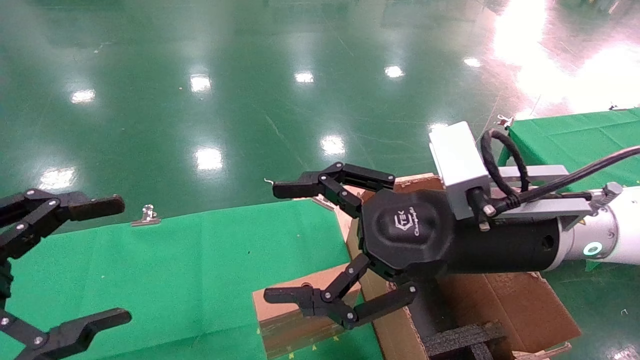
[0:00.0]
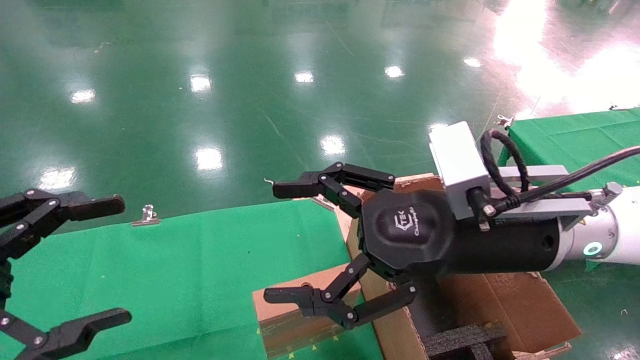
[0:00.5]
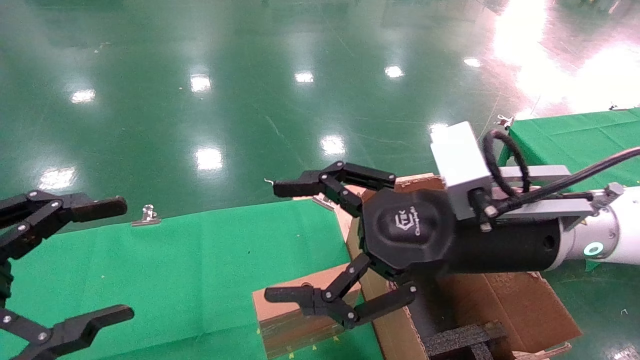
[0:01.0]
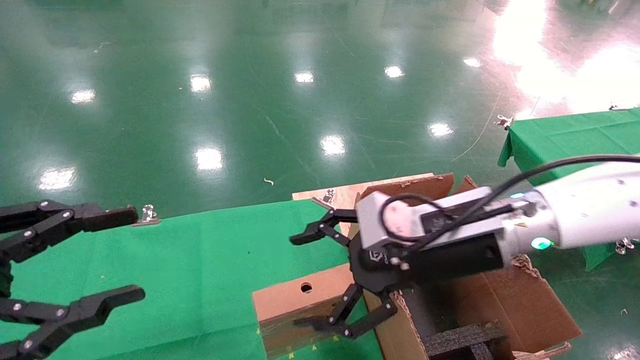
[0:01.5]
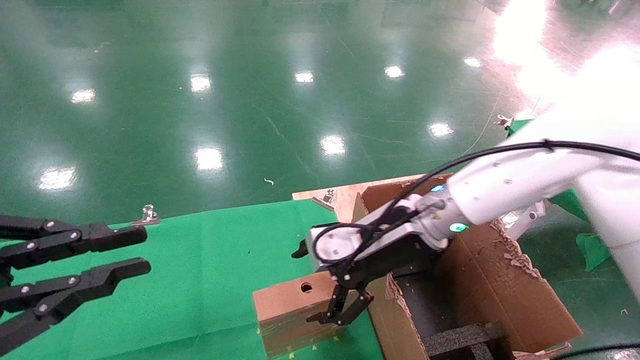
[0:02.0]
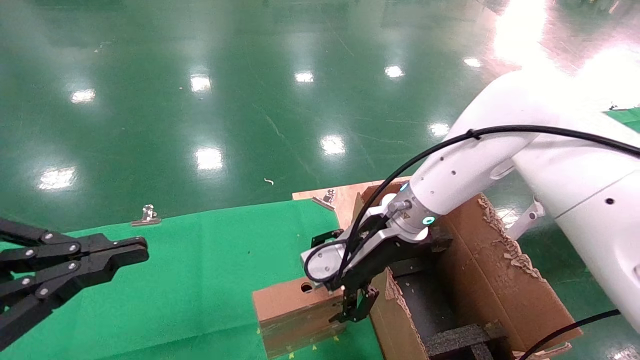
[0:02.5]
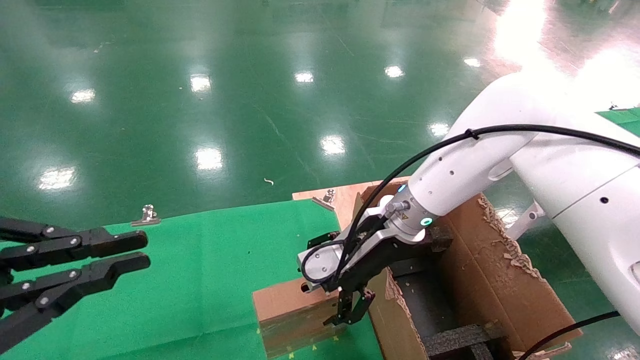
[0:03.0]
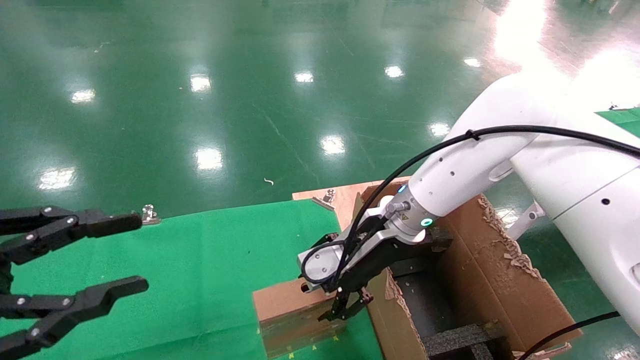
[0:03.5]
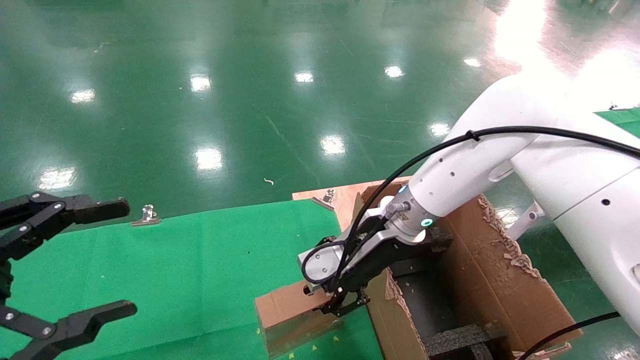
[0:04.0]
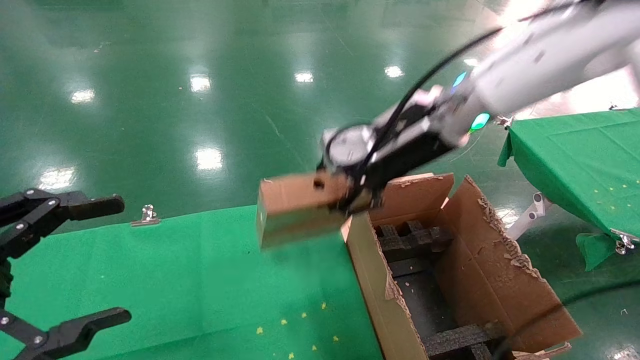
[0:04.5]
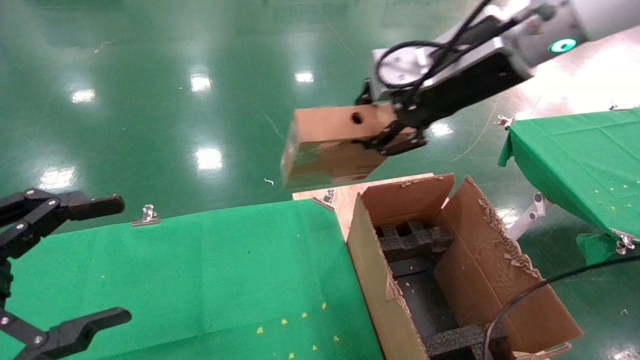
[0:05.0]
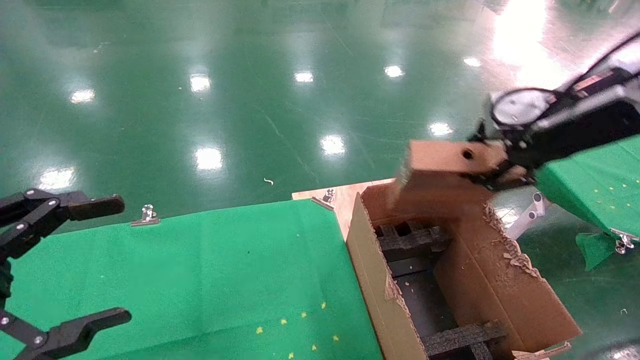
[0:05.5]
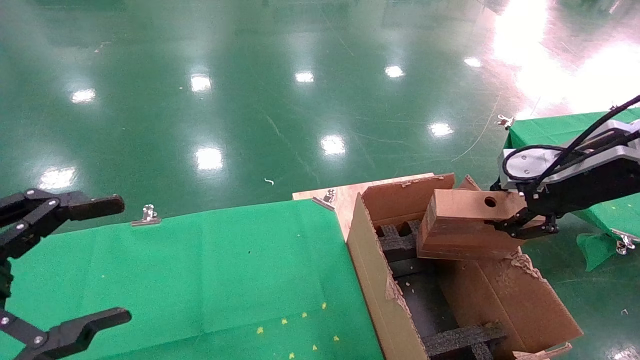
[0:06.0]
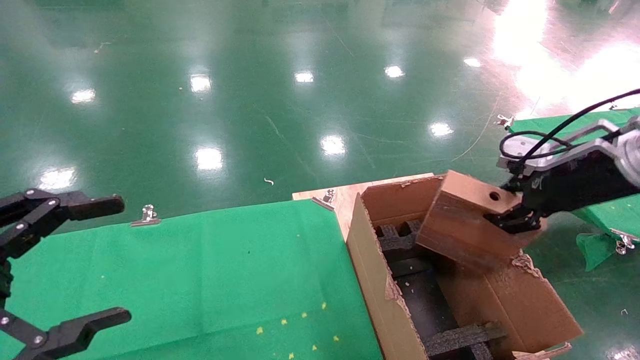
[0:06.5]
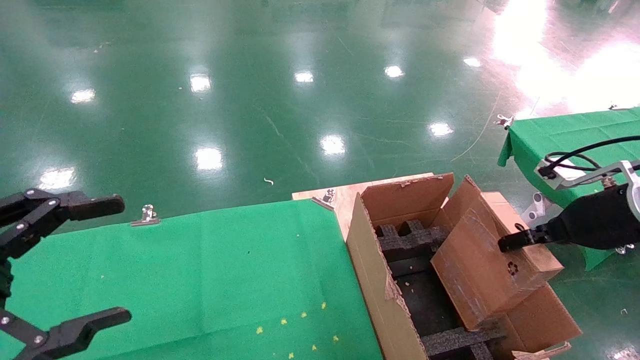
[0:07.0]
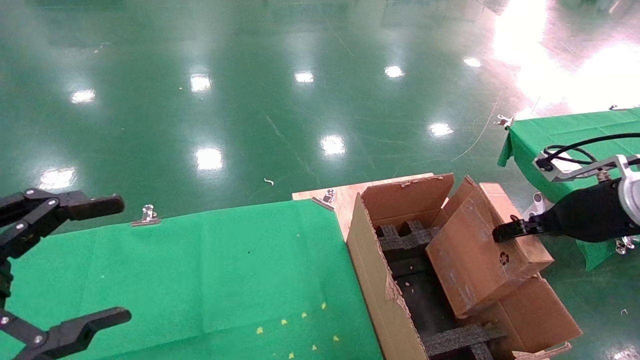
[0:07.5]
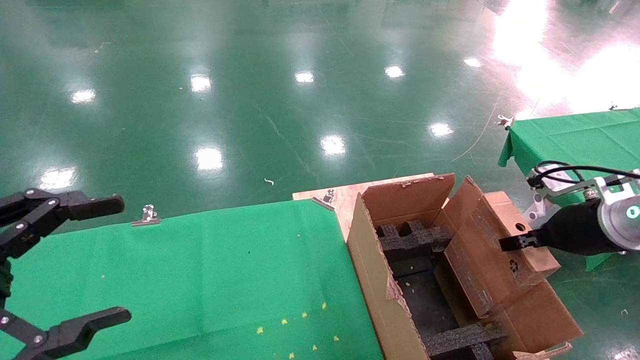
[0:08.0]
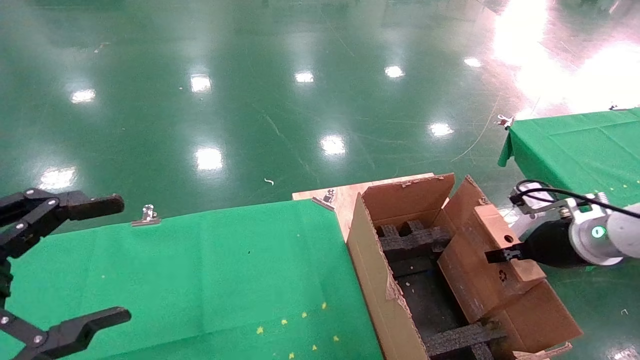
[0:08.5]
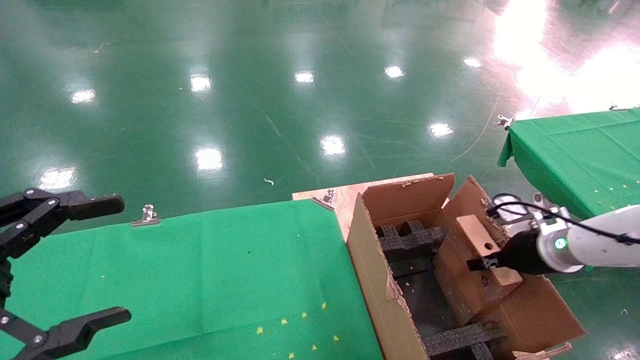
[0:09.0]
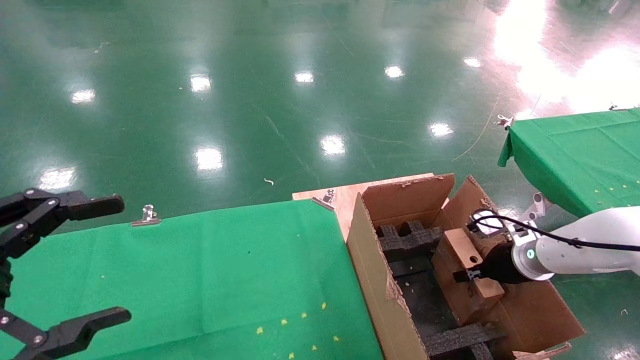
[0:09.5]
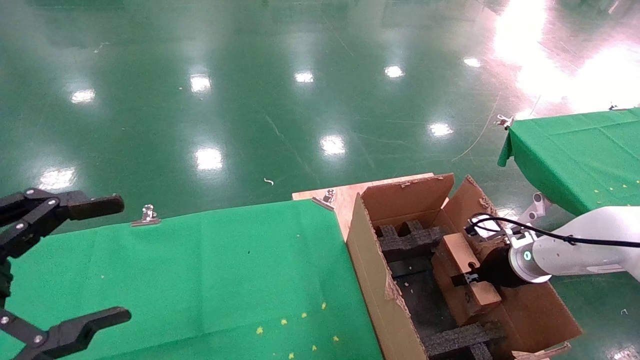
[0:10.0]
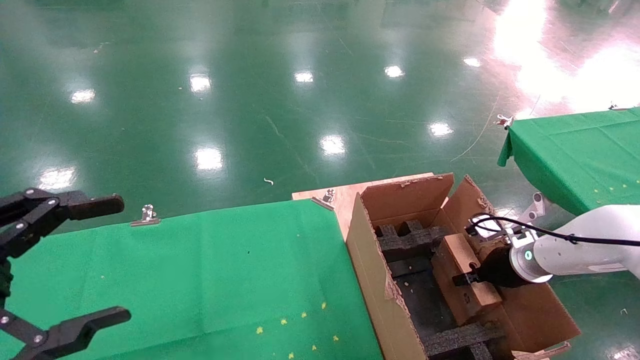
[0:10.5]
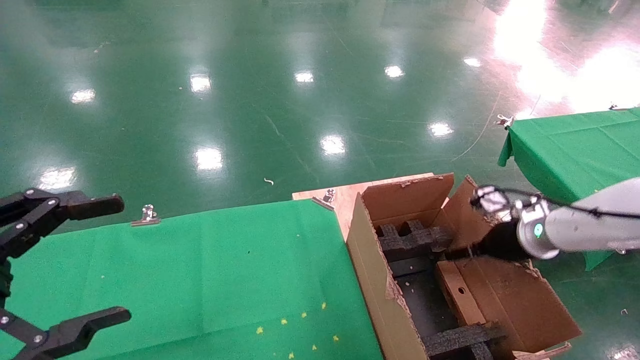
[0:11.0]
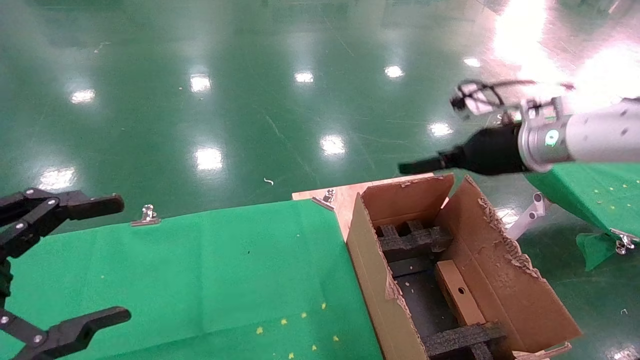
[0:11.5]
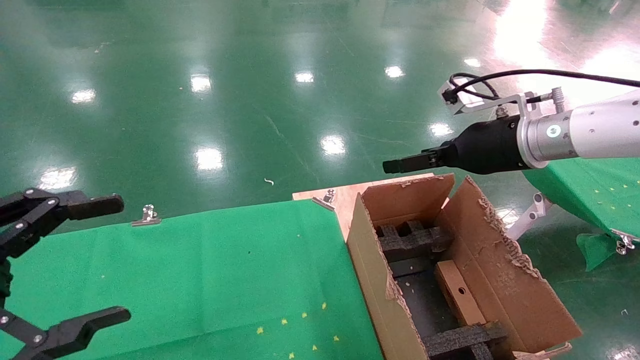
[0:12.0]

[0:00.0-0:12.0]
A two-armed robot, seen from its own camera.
Task of the whole recording: using a robotic arm to pick up a cardboard box and palace it the carton.
Step, 0:01.5 to 0:03.5: Pick up the mouse and the power cord paper box.
Step, 0:04.0 to 0:10.5: Place the mouse and the power cord paper box into the container.
0:00.0 to 0:02.0: The left gripper closes its fingers. Meanwhile the right gripper heads forward, covering about 10 cm.
0:02.0 to 0:04.0: The left gripper opens. The right gripper closes up.
0:04.0 to 0:06.0: The right gripper travels to the right, backward and upward by about 30 cm.
0:06.0 to 0:08.0: The right gripper travels downward by roughly 10 cm.
0:08.0 to 0:10.0: The right gripper goes some 15 cm downward and forward.
0:10.0 to 0:12.0: The right gripper shifts approximately 25 cm upward and to the left, and opens its fingers.

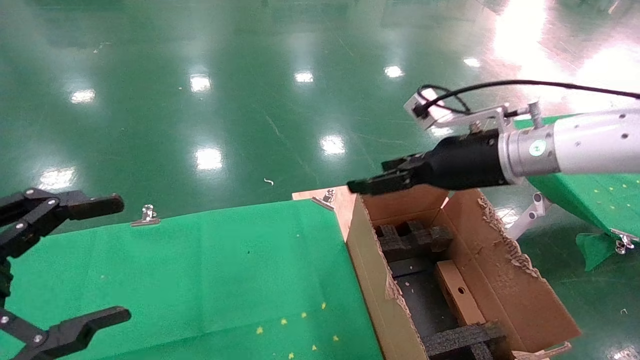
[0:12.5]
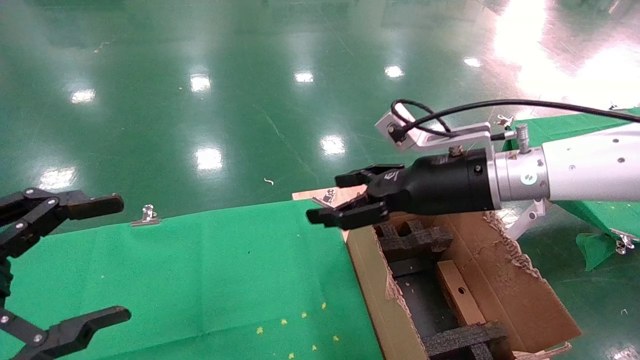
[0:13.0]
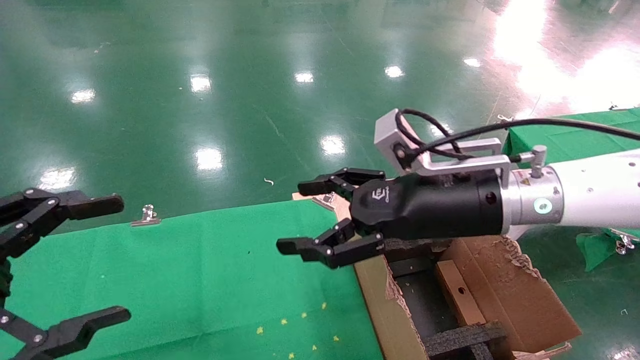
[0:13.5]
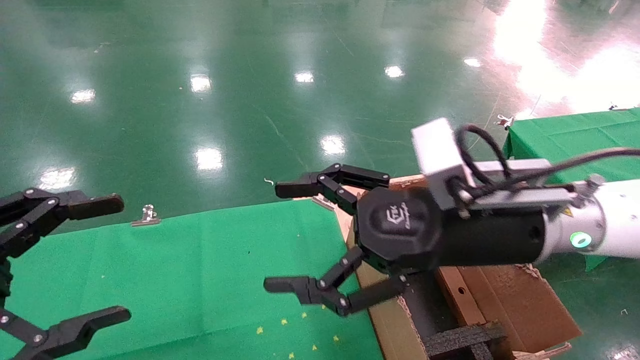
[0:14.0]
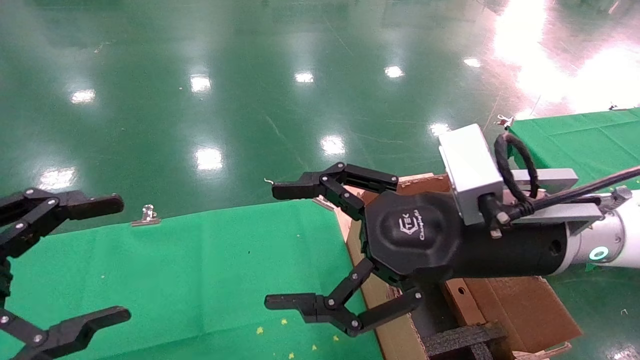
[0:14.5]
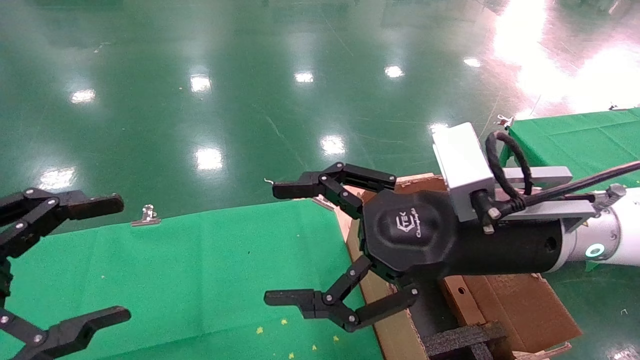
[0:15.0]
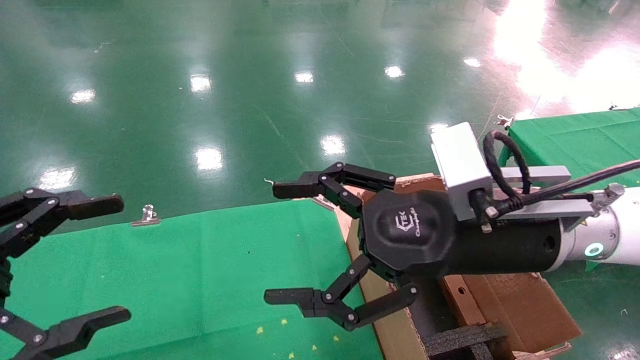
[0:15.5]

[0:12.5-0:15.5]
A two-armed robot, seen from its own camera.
Task of the whole recording: using a robotic arm to pick up a cardboard box and palace it the carton.
0:12.5 to 0:14.0: The right gripper travels backward and to the left by roughly 15 cm.
0:14.0 to 0:15.5: There are only small adjustments of the grippers.

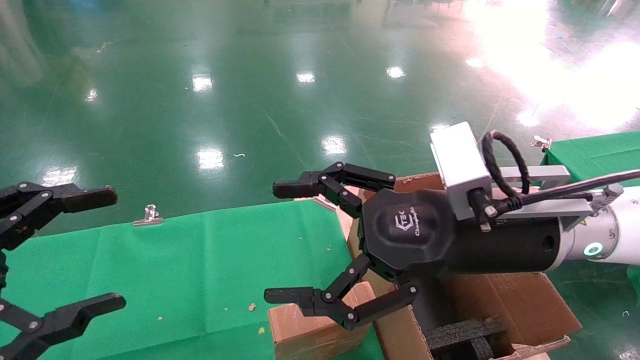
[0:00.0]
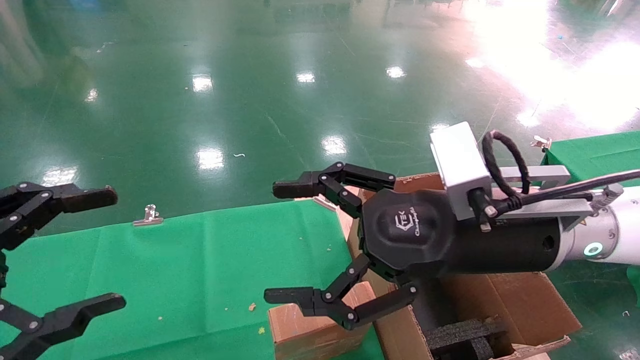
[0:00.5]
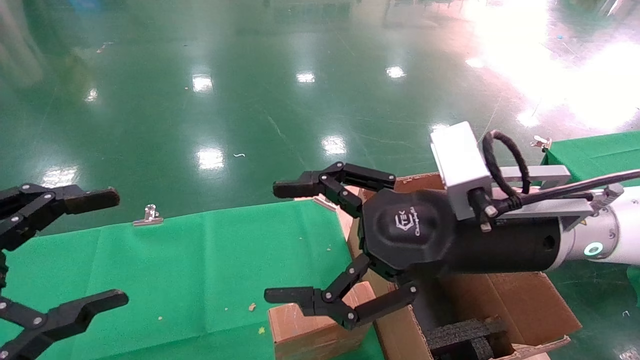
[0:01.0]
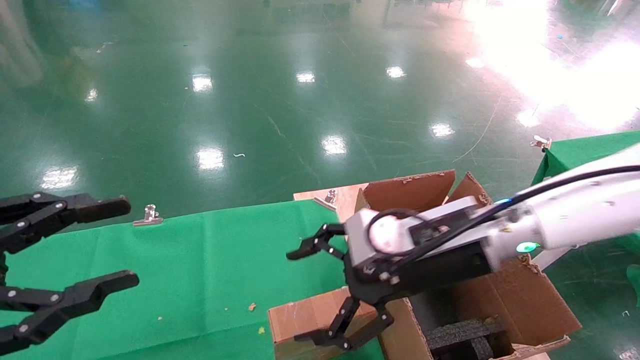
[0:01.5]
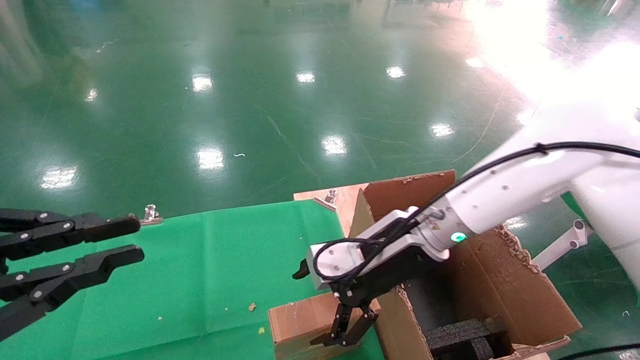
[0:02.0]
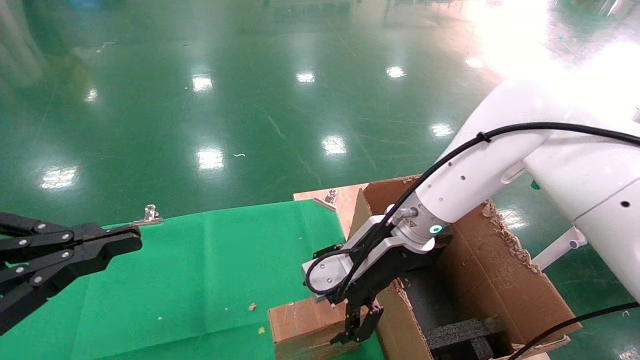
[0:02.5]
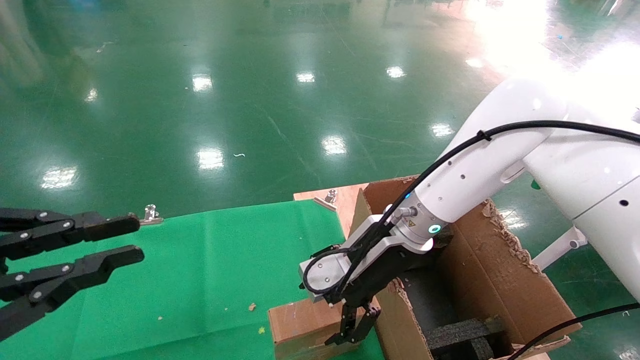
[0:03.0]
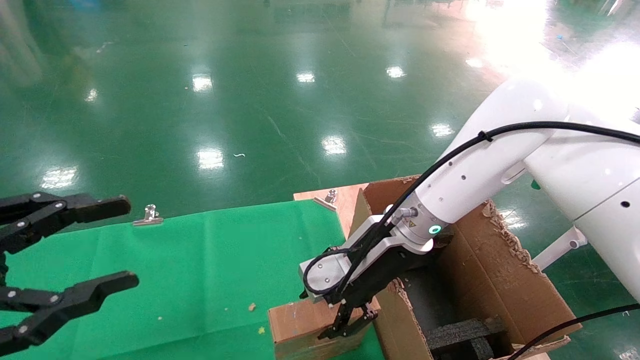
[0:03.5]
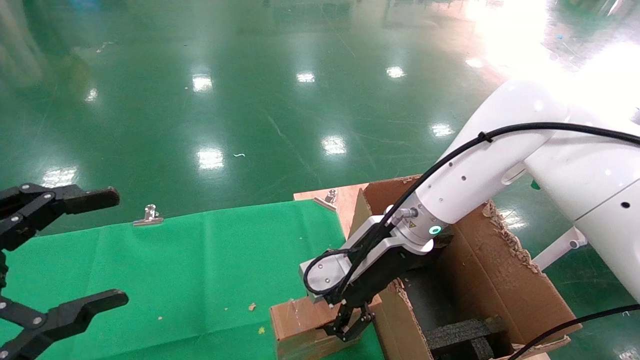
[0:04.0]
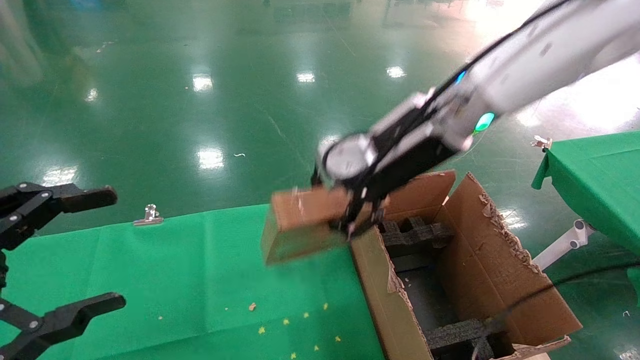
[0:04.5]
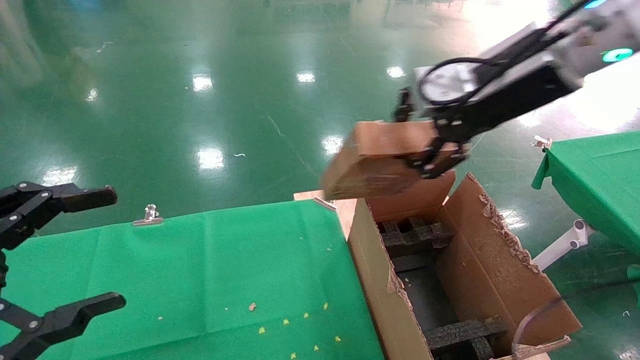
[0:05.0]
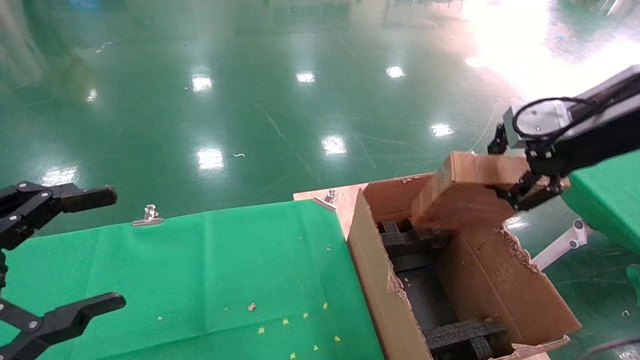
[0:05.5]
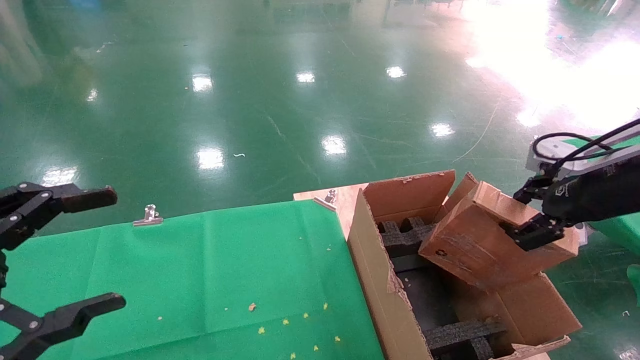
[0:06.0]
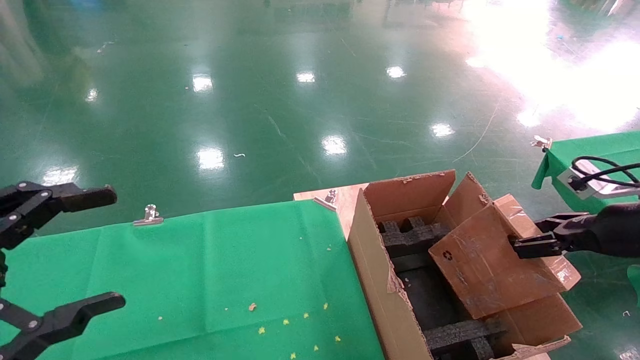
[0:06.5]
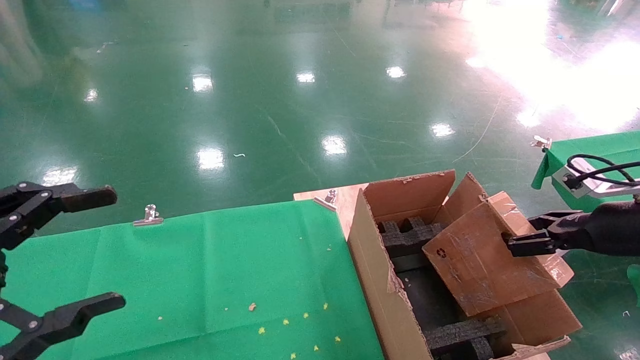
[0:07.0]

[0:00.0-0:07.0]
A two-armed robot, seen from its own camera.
Task of the whole recording: using a robotic arm to pick up a cardboard box and palace it the carton.
Step, 0:01.5 to 0:06.0: Pick up the mouse and the power cord paper box.
0:00.0 to 0:02.0: The left gripper closes; the right gripper shifts about 10 cm forward and downward.
0:02.0 to 0:03.5: The grippers move only a little.
0:03.5 to 0:05.0: The left gripper opens. Meanwhile the right gripper is displaced upward and to the right by some 25 cm, and closes its fingers.
0:05.0 to 0:07.0: The right gripper goes roughly 30 cm to the right and downward.
